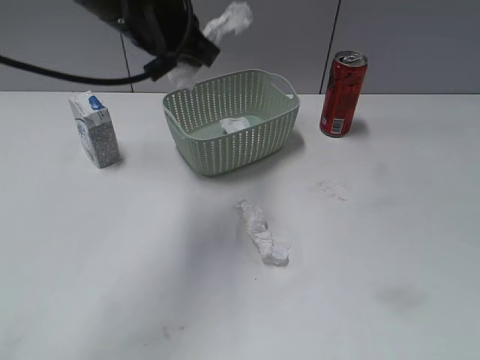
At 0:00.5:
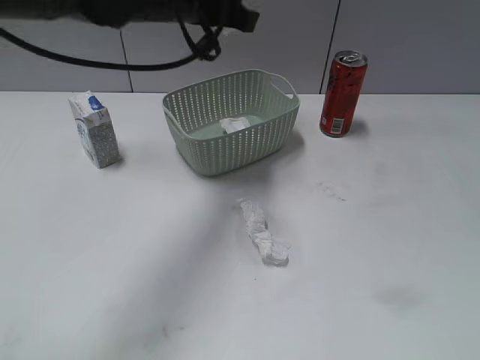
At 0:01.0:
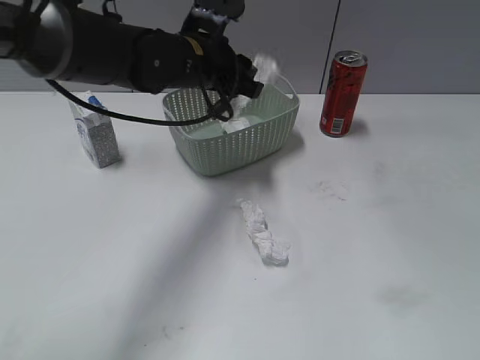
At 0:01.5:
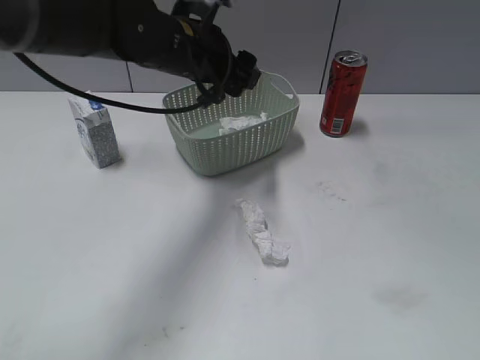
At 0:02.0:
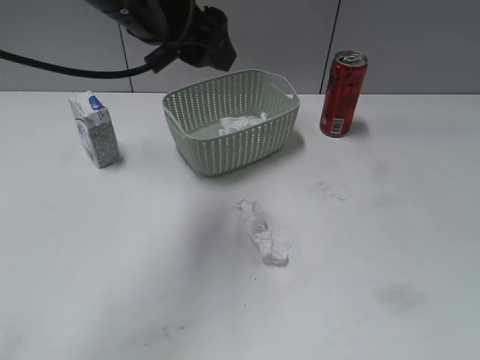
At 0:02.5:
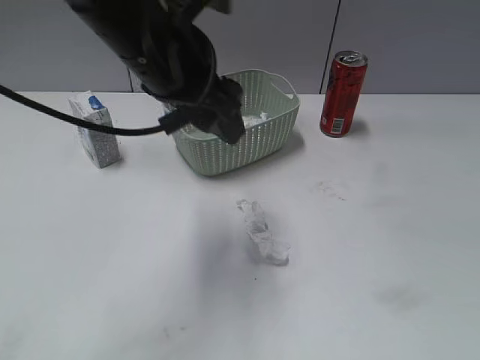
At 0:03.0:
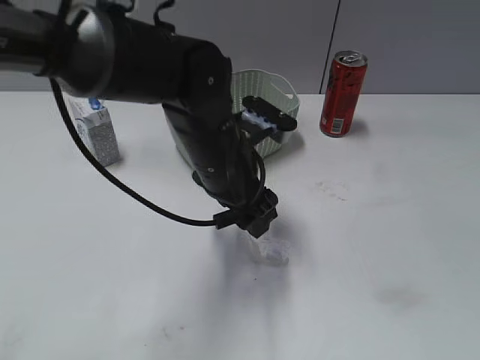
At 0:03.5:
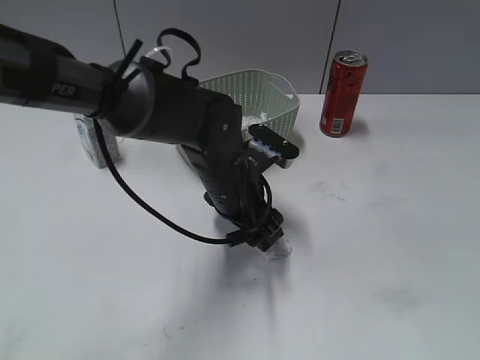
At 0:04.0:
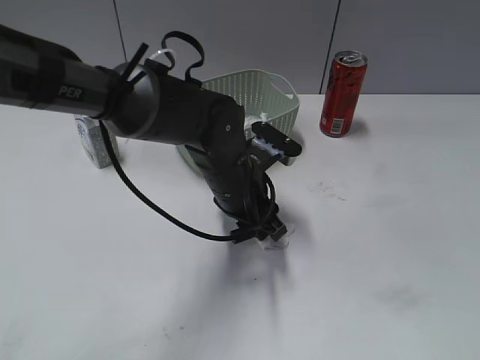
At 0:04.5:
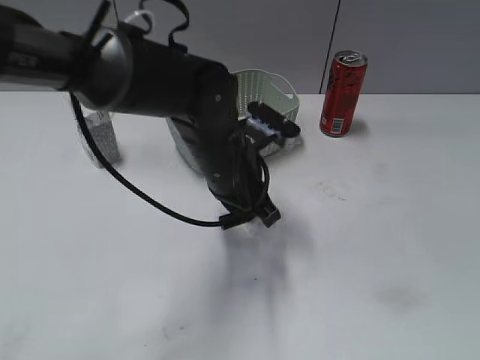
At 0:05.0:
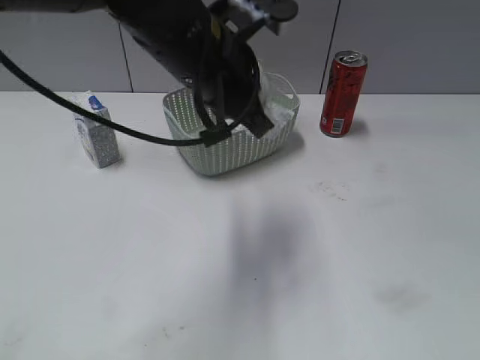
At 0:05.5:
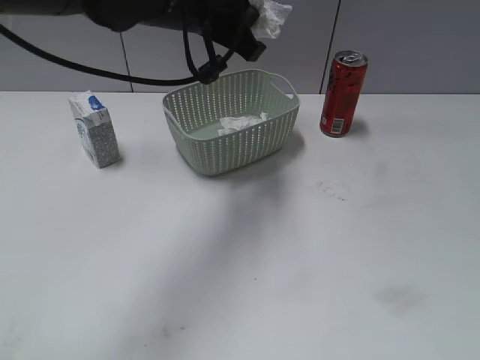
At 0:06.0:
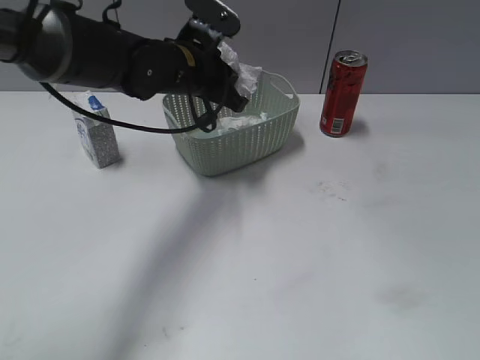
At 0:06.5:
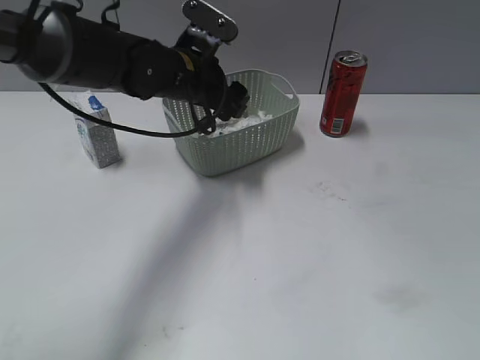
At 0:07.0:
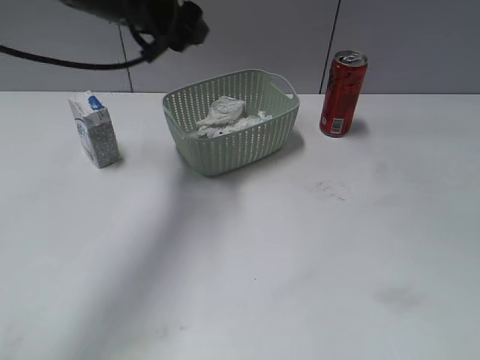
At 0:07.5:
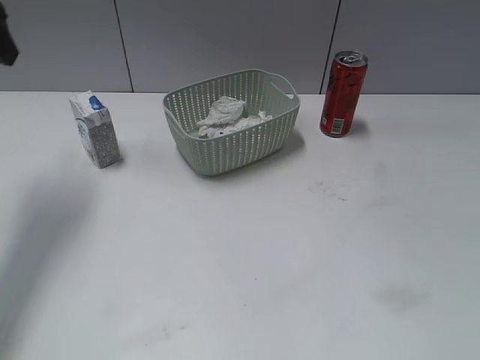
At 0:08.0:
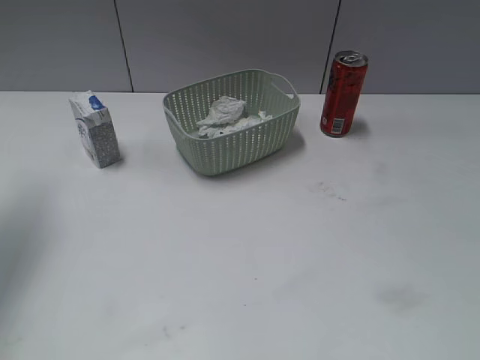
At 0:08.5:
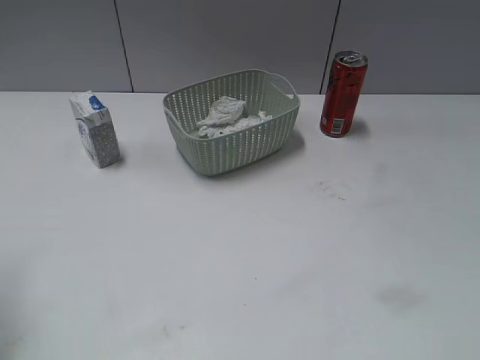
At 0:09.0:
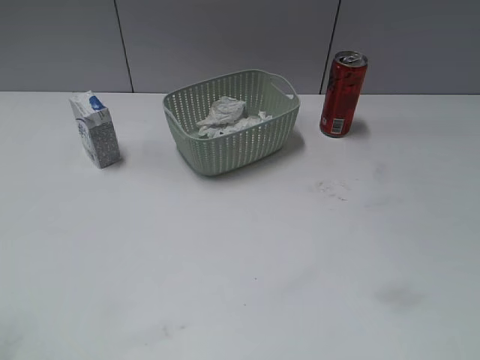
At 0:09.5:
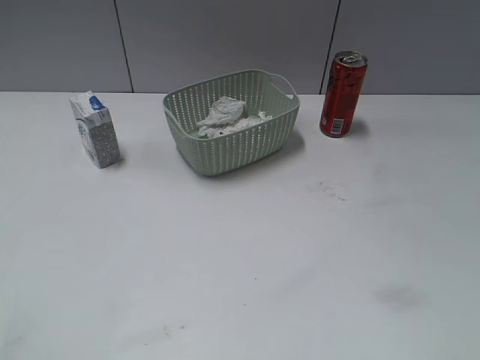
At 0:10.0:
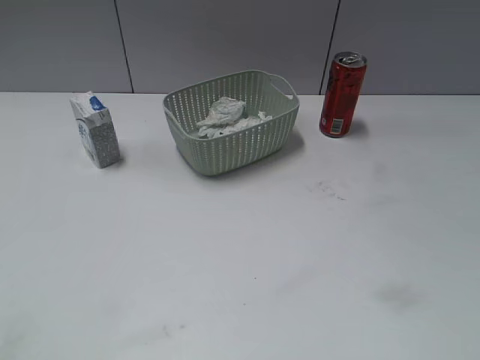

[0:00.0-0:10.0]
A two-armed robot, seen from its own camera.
Step, 0:00.0 to 0:01.5: Place the waste paper in the basket with left gripper.
Step, 0:02.0 to 0:04.0: Grasp the waste paper with left gripper.
Step, 0:04.5 to 0:06.5: Place the waste paper in the basket with left gripper.
0:00.0 to 0:02.0: The left gripper travels downward and back again, some 10 cm each way, and opens its fingers.
0:02.0 to 0:04.0: The left gripper is displaced downward and to the right by about 20 cm.
0:04.0 to 0:06.0: The left gripper shifts some 15 cm forward, upward and to the left, and closes up.
0:06.0 to 0:08.0: The left gripper shifts roughly 30 cm to the left and upward, and opens its fingers.
0:08.0 to 0:10.0: The left gripper travels backward by some 30 cm.
